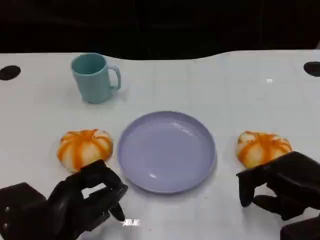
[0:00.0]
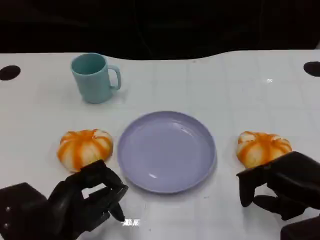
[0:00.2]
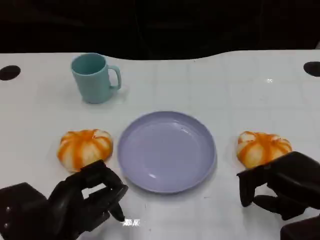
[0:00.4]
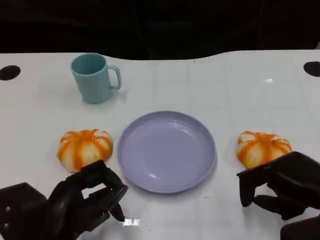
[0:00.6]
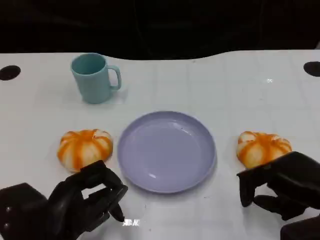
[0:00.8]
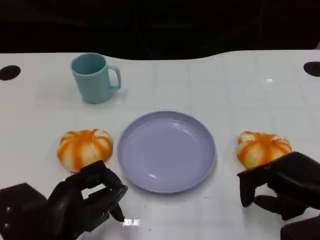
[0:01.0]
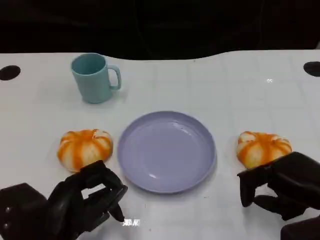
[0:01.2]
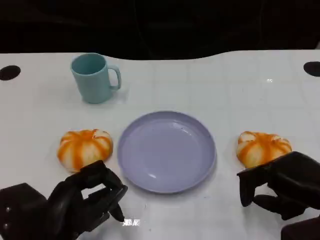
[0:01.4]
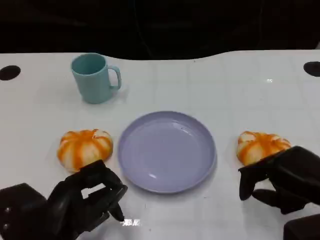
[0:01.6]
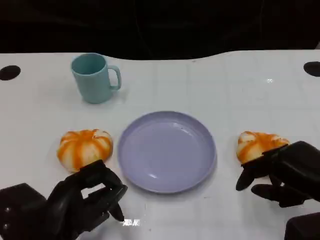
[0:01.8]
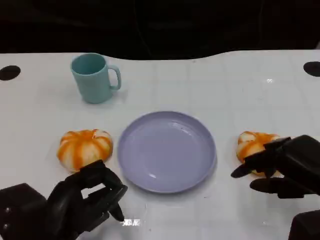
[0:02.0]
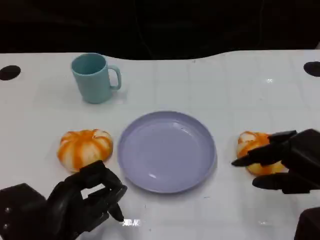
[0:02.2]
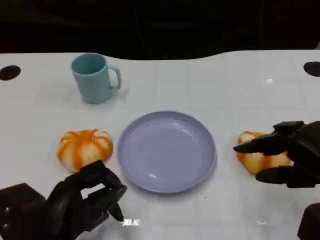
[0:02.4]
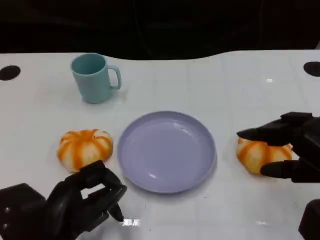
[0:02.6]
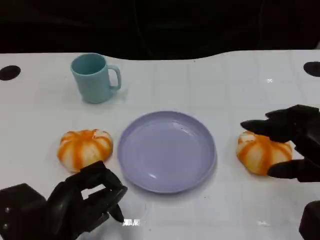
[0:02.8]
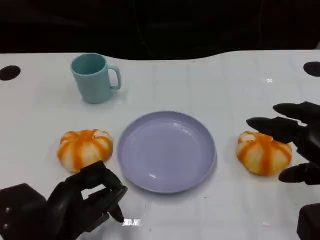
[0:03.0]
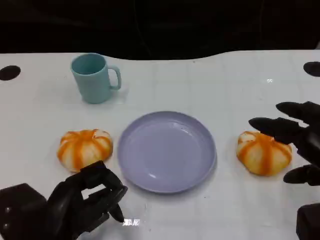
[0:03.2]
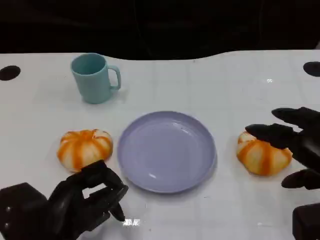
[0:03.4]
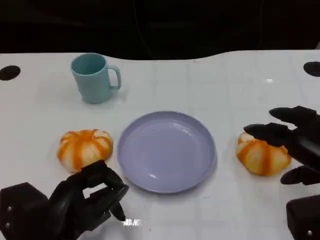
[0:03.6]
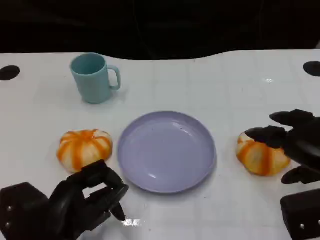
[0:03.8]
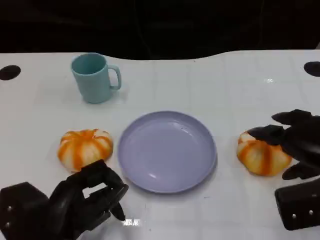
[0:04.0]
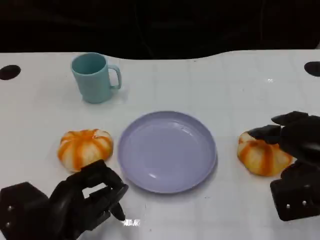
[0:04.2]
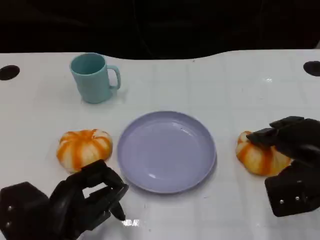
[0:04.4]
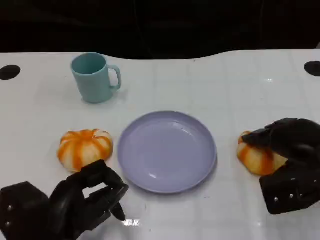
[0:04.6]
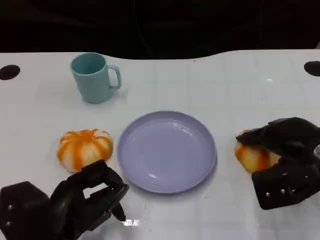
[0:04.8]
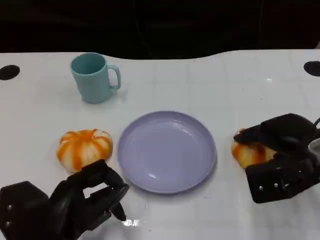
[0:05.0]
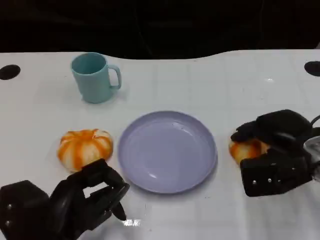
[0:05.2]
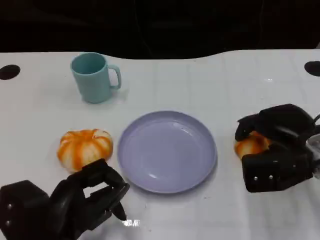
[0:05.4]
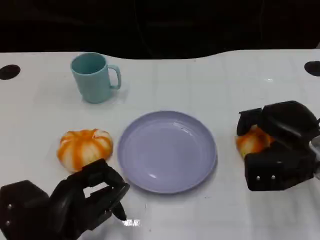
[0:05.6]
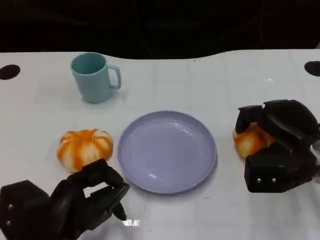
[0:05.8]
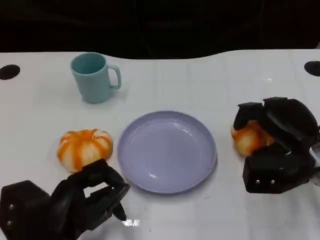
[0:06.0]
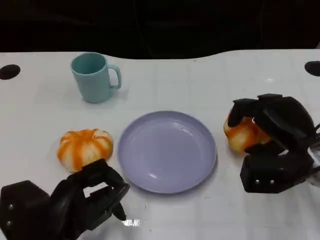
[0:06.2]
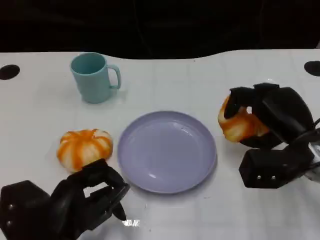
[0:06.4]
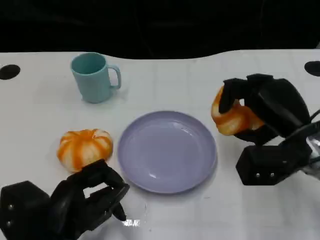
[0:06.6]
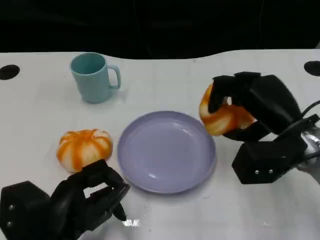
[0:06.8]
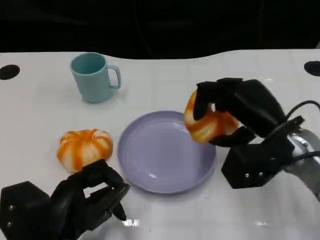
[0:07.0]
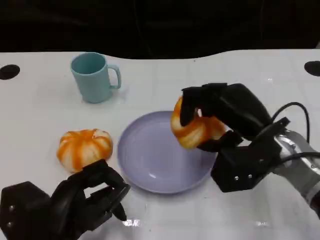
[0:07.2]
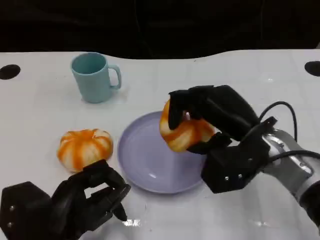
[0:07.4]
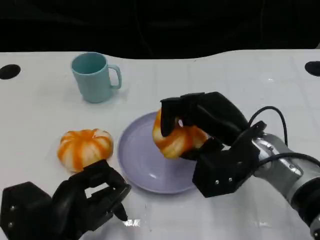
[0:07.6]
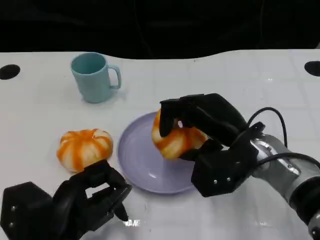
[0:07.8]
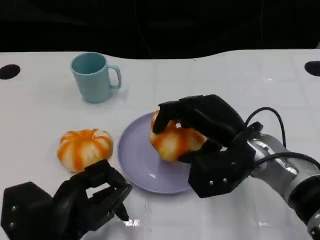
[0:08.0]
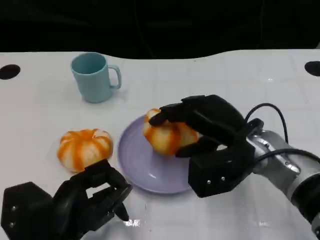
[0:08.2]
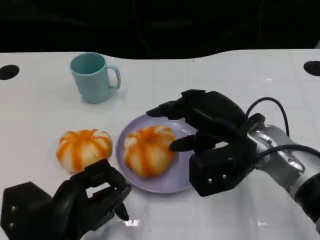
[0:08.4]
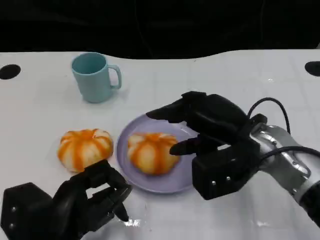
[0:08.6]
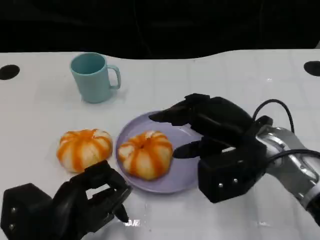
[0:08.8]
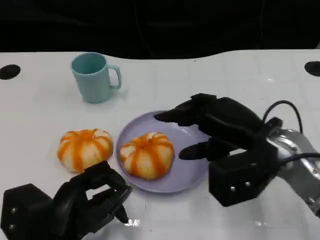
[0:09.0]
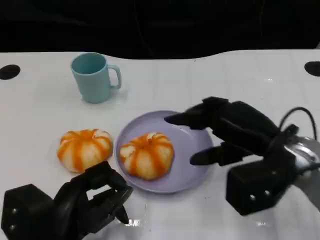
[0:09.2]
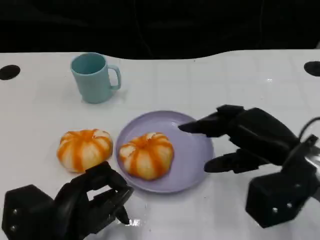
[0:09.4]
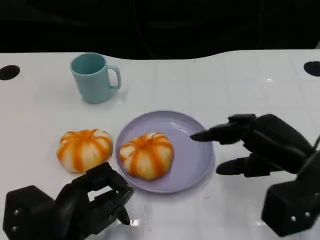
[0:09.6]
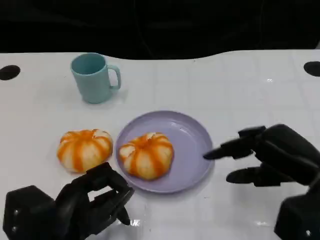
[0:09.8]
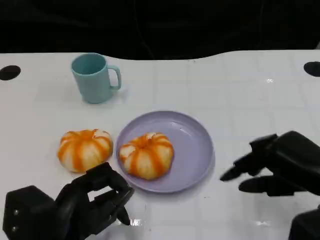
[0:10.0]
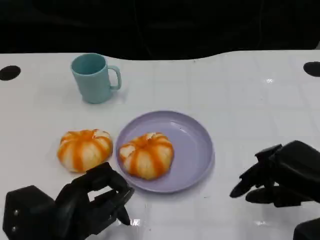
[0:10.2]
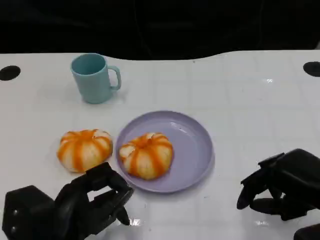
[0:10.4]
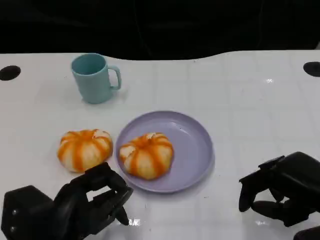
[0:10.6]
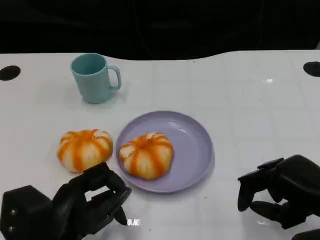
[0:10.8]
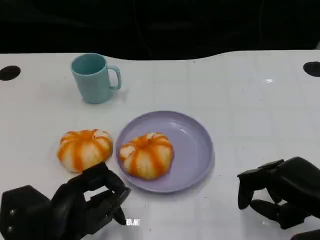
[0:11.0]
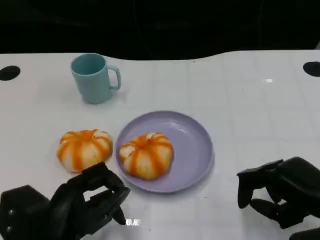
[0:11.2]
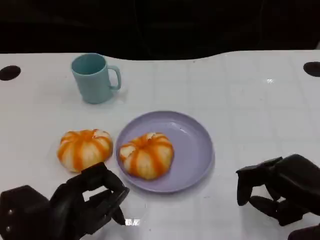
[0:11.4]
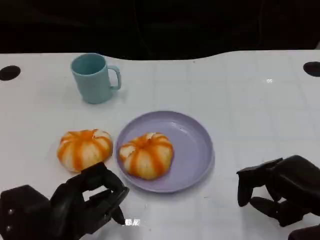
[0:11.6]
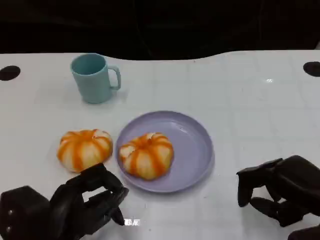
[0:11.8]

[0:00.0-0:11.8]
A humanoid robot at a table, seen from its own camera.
Task of the whole recording: Grasp the bread from the table and place it into the plate.
0:00.0 to 0:01.4: Neither hand changes place.
0:01.4 to 0:03.0: The right hand goes approximately 5 cm upward.
0:03.0 to 0:04.4: The right hand is displaced forward and downward by approximately 10 cm.
0:06.0 to 0:07.4: The right hand travels to the left by some 10 cm.
0:07.4 to 0:08.8: The hands make only small movements.
0:08.8 to 0:10.4: The right hand travels to the right and backward by about 15 cm.
0:10.4 to 0:11.8: There are only small adjustments of the hands.

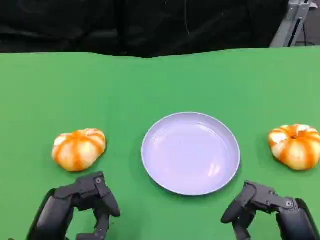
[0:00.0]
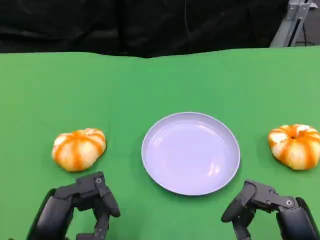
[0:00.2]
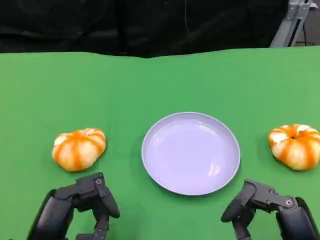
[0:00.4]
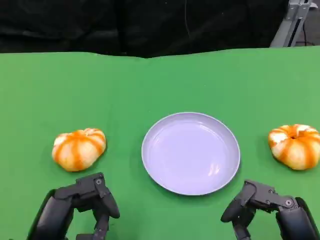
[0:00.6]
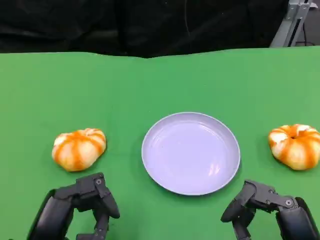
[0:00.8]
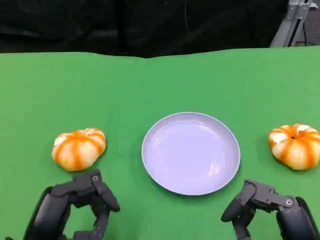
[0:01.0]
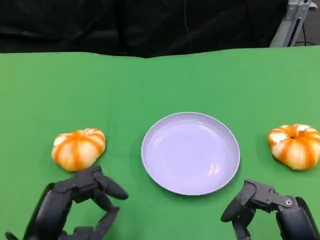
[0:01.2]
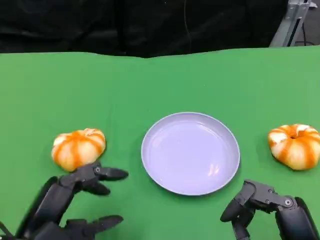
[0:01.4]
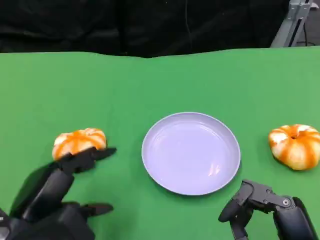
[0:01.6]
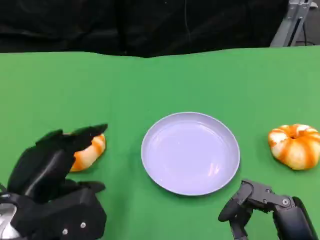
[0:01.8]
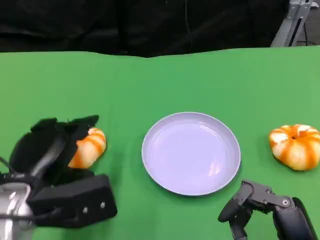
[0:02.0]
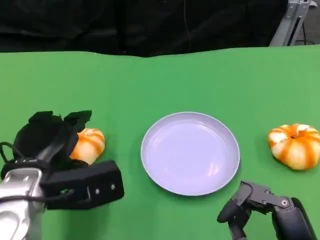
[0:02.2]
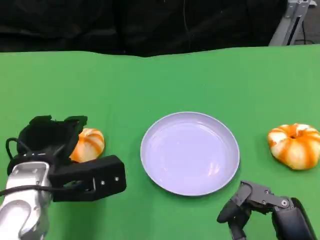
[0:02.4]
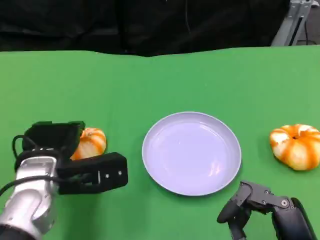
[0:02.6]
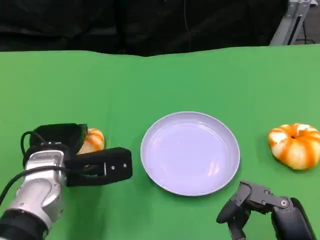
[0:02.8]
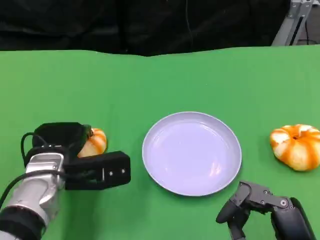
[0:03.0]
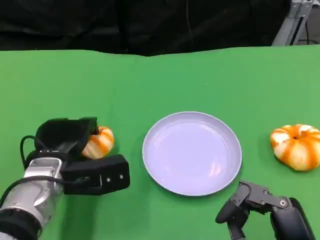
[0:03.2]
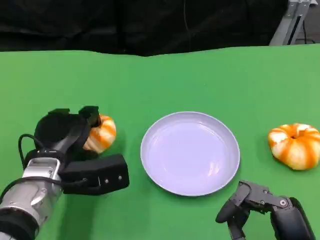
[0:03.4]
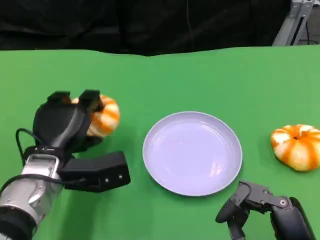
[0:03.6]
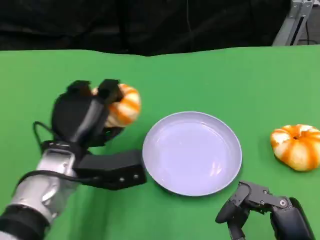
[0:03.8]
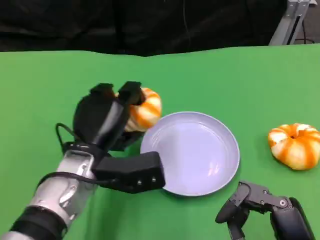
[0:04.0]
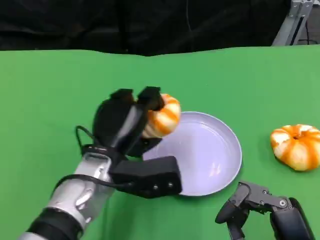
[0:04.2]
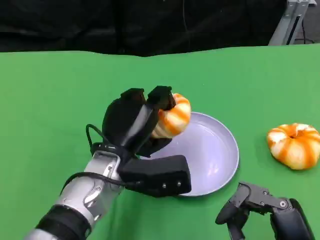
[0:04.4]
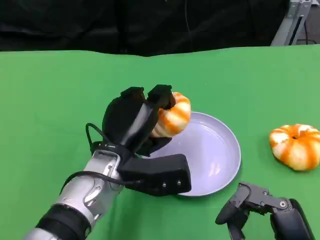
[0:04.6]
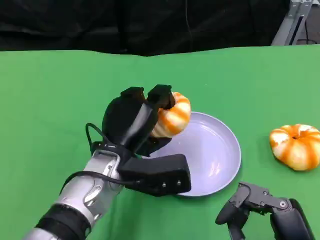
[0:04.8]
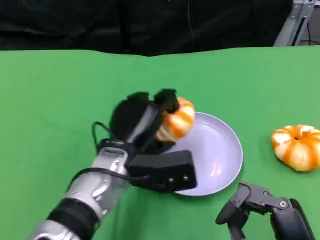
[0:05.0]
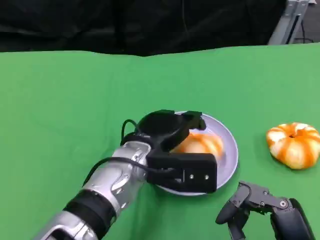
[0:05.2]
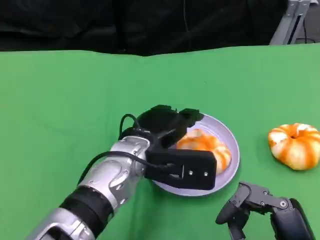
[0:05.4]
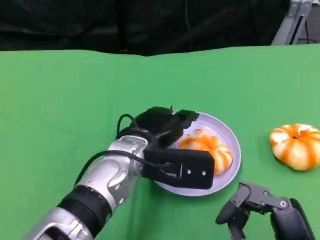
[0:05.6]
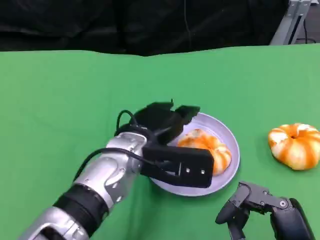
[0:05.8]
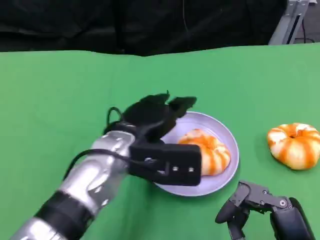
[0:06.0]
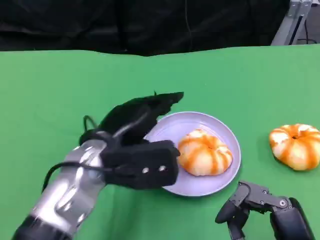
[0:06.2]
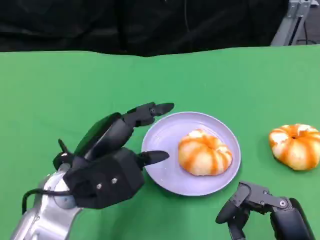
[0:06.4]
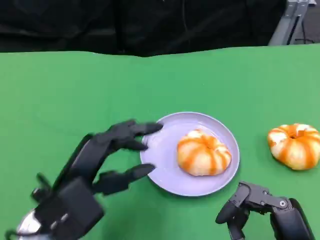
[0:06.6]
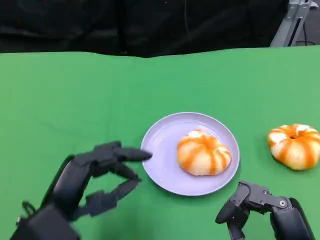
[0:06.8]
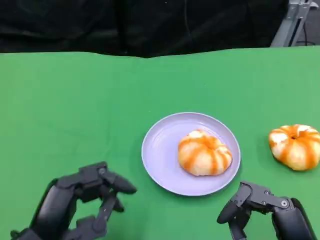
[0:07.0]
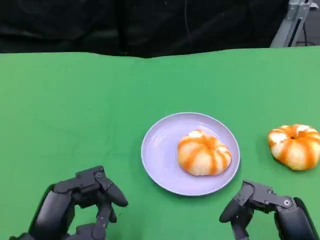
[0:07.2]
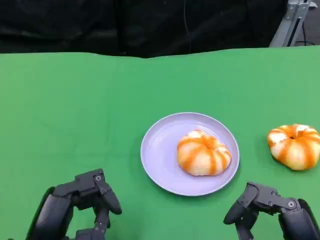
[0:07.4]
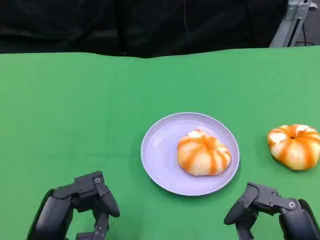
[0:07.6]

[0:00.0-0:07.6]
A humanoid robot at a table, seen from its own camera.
Task of the whole recording: Grasp the bread from the table and place it into the plate.
0:01.6 to 0:03.0: The left hand shifts roughly 10 cm forward.
0:03.0 to 0:04.6: The left hand moves to the right, roughly 10 cm.
0:06.0 to 0:07.6: The left hand travels backward and to the left by about 20 cm.

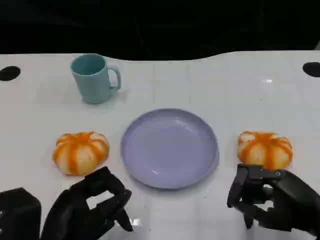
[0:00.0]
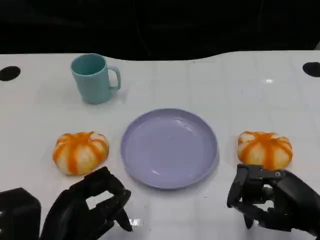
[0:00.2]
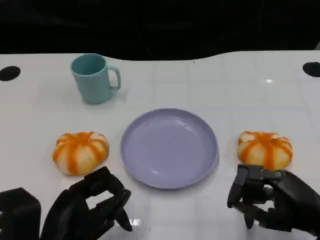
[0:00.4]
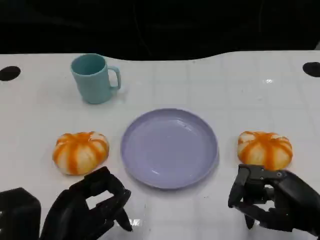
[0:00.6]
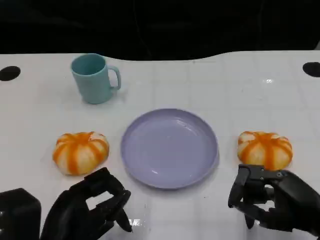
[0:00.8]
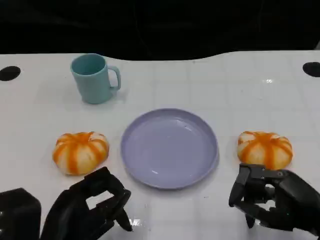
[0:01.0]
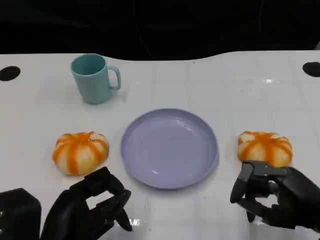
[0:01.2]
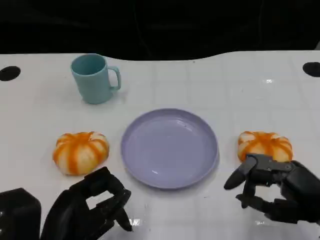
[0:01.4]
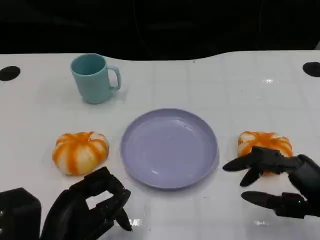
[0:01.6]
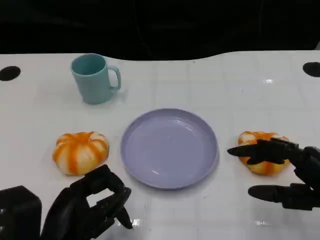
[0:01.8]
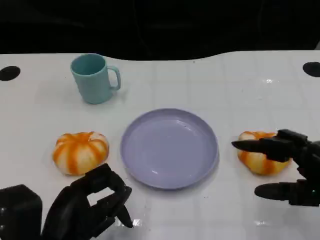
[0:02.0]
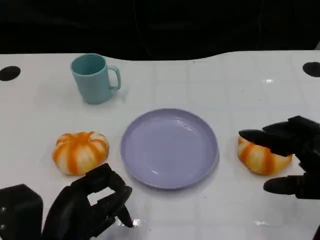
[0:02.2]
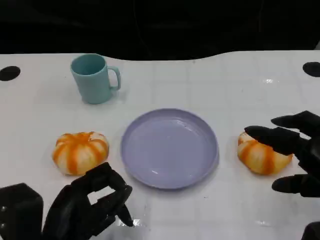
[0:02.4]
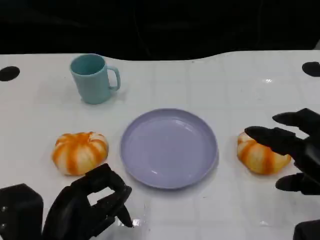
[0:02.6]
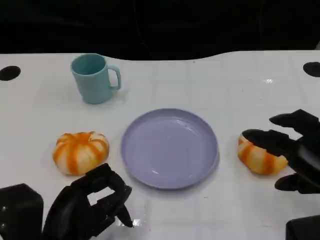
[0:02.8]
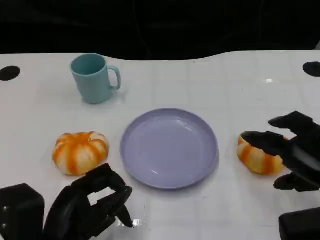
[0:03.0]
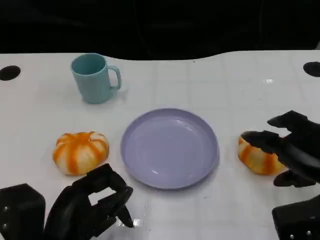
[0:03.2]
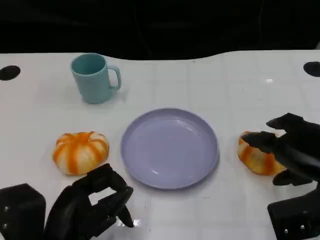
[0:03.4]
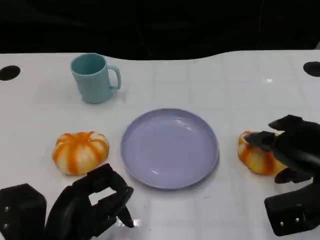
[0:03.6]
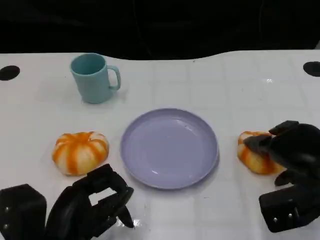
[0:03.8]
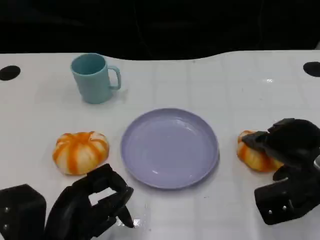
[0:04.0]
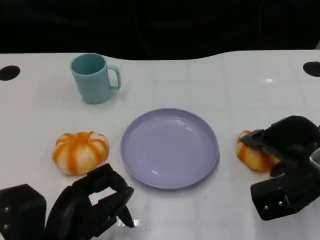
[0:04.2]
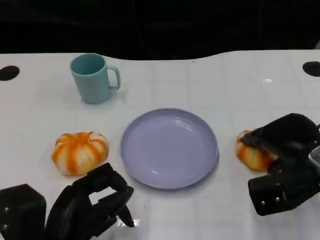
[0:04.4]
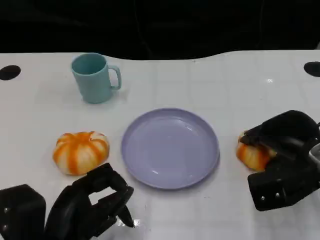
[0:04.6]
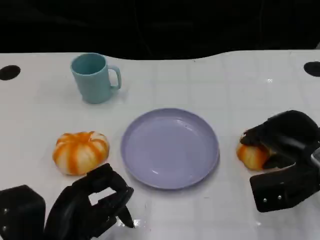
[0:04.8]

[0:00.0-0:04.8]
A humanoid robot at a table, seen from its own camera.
Task of the whole recording: Grasp the bread from the table and place it into the plate.
0:01.6 to 0:03.2: The right hand is displaced forward by about 5 cm.
0:03.2 to 0:04.8: The right hand is displaced forward by about 5 cm.
